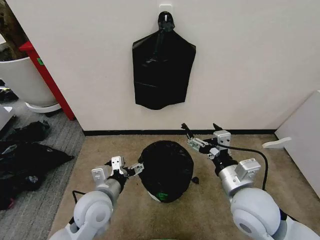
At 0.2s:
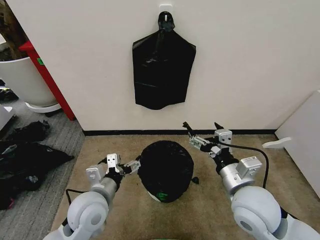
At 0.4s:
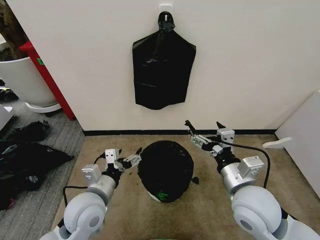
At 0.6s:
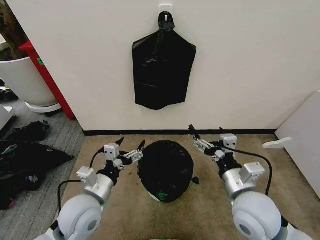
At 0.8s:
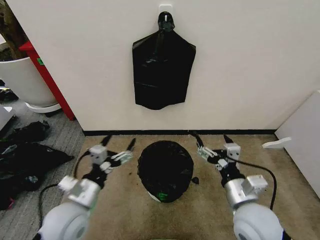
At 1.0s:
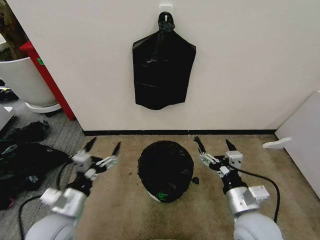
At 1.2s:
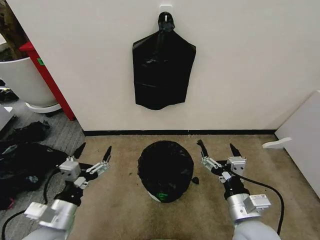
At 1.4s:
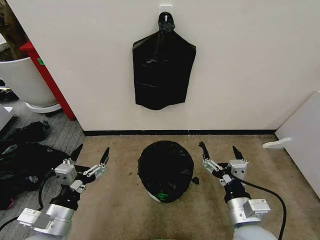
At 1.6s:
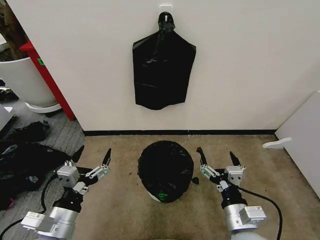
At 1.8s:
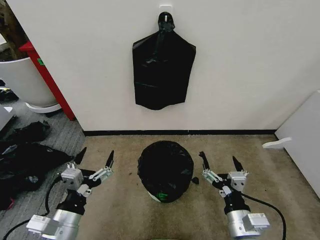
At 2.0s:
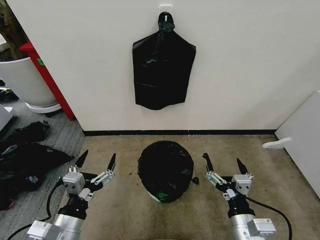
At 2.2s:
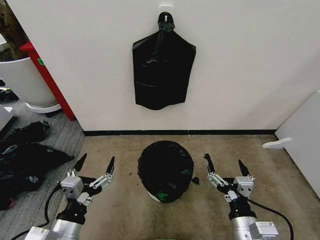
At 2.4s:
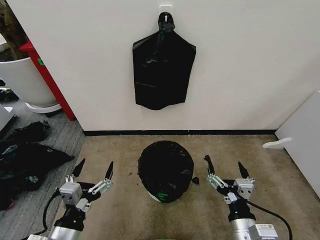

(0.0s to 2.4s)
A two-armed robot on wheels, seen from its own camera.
Task of the whole recording: Place the garbage bag over the trash bin.
0.0s - 1.2s: The right gripper shifts about 10 cm downward and backward, while the left gripper goes some 15 cm to the left and backward.
1.2s - 2.4s: The right gripper ends up approximately 5 cm from where it was; the left gripper shifts about 5 cm backward.

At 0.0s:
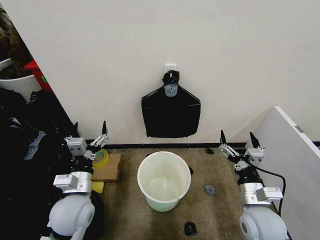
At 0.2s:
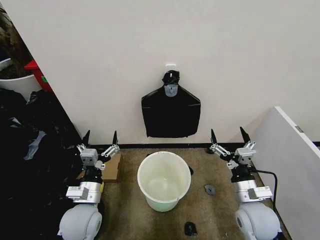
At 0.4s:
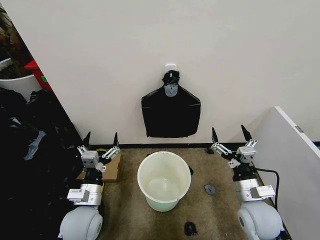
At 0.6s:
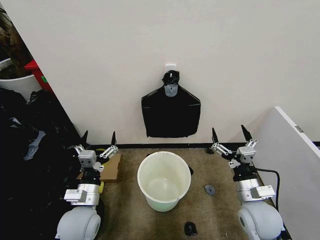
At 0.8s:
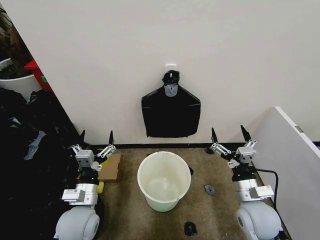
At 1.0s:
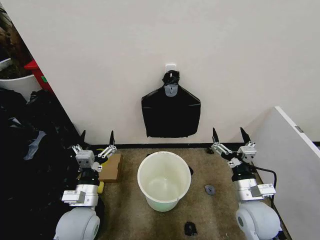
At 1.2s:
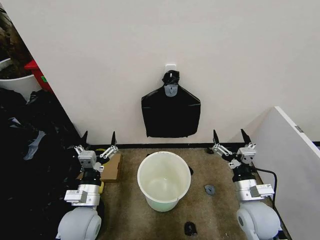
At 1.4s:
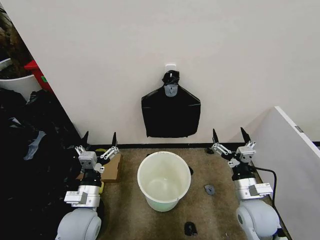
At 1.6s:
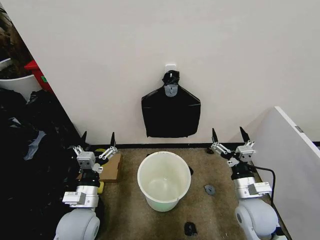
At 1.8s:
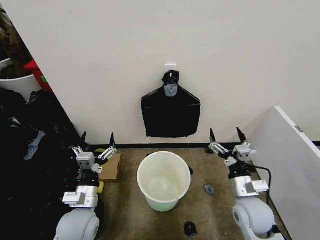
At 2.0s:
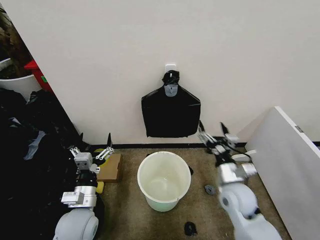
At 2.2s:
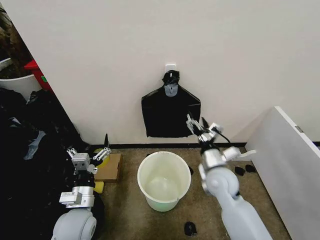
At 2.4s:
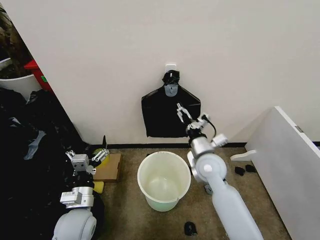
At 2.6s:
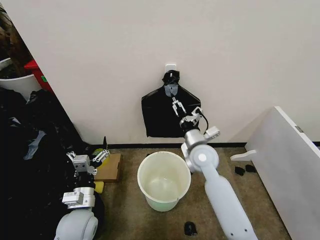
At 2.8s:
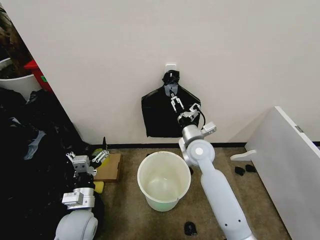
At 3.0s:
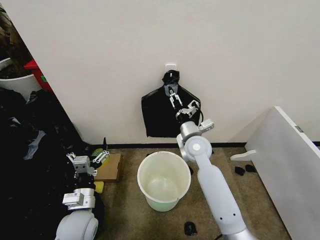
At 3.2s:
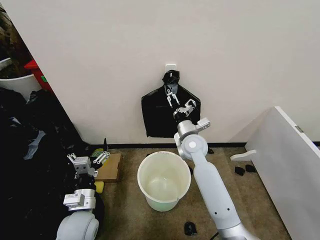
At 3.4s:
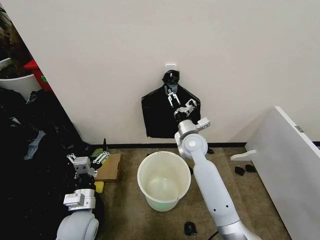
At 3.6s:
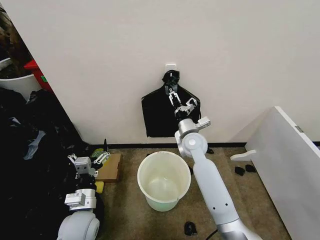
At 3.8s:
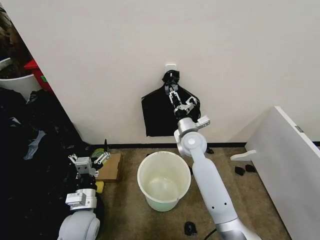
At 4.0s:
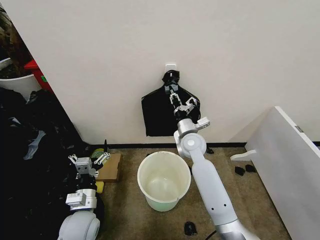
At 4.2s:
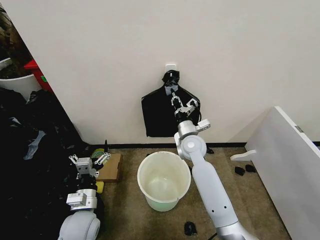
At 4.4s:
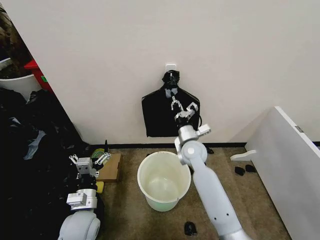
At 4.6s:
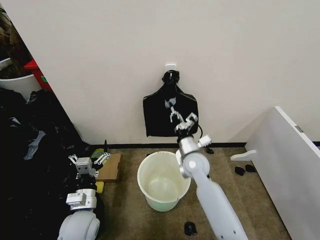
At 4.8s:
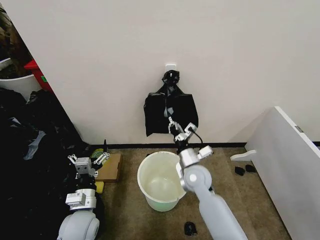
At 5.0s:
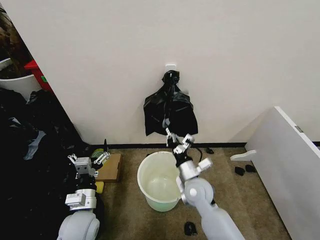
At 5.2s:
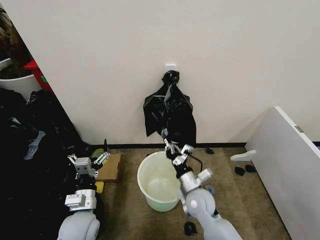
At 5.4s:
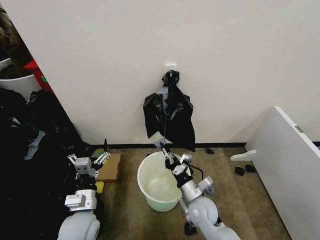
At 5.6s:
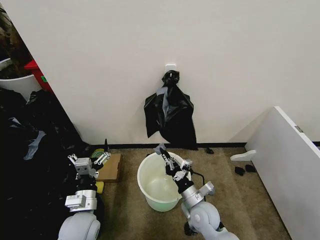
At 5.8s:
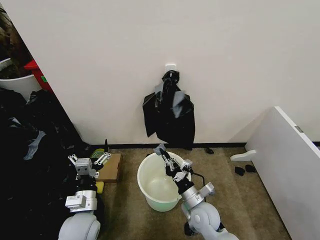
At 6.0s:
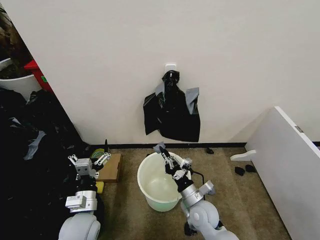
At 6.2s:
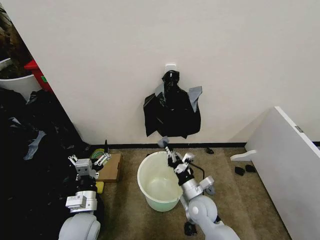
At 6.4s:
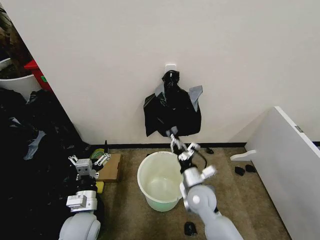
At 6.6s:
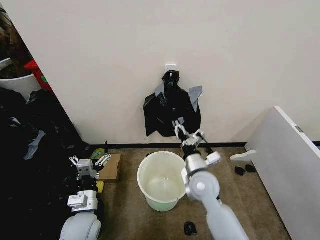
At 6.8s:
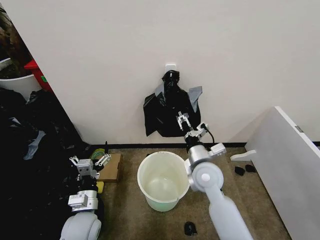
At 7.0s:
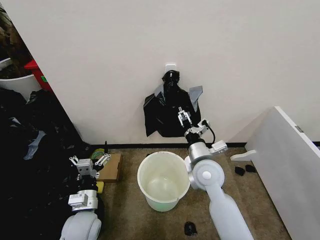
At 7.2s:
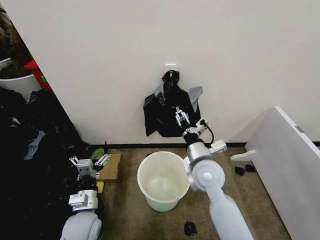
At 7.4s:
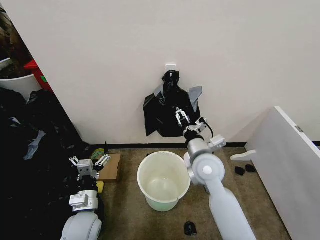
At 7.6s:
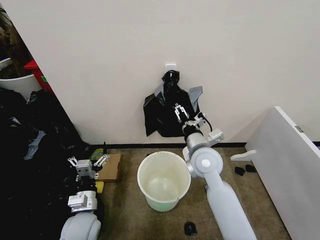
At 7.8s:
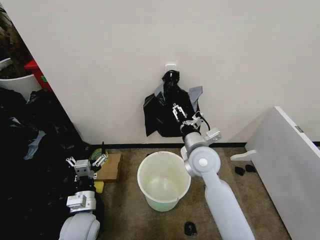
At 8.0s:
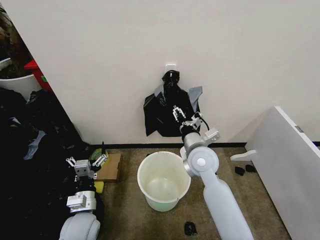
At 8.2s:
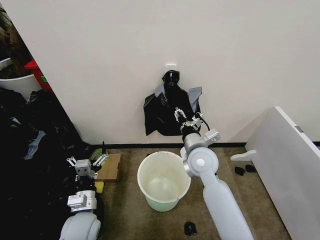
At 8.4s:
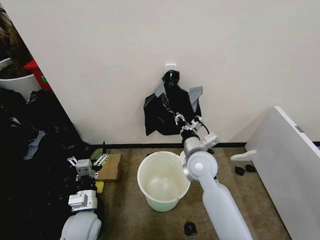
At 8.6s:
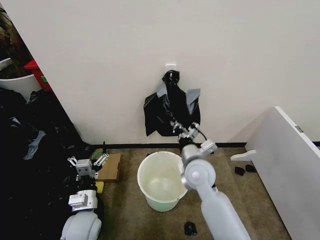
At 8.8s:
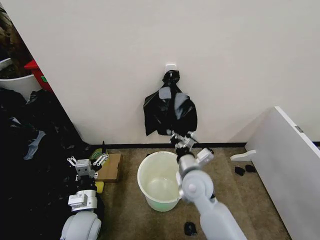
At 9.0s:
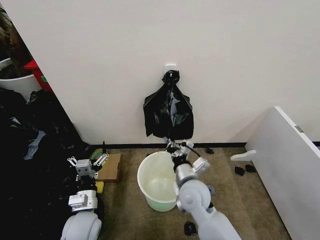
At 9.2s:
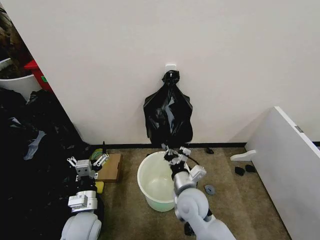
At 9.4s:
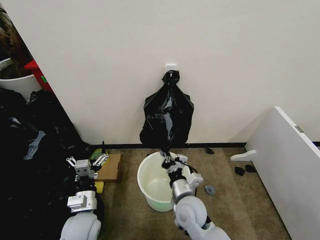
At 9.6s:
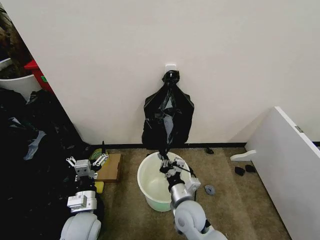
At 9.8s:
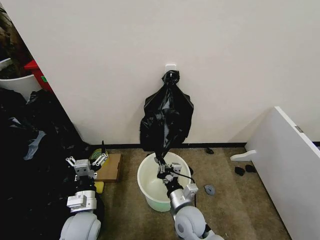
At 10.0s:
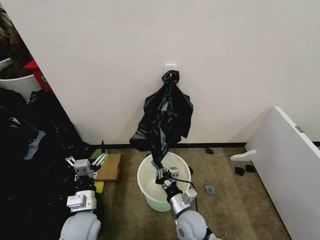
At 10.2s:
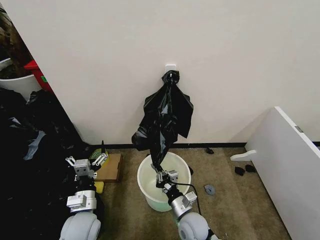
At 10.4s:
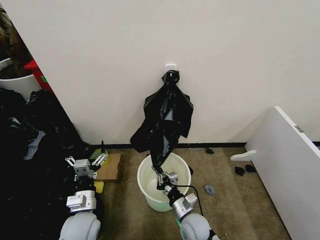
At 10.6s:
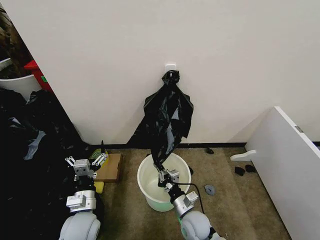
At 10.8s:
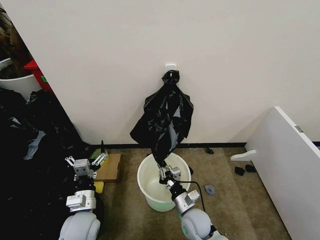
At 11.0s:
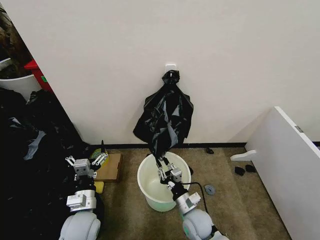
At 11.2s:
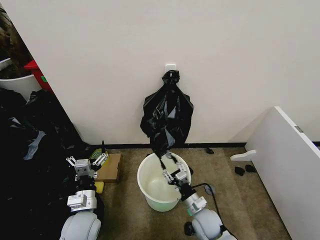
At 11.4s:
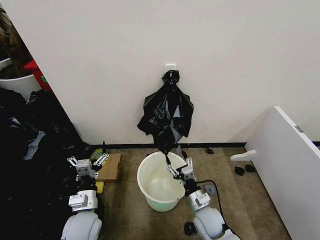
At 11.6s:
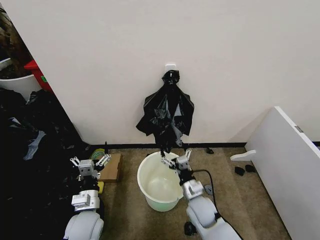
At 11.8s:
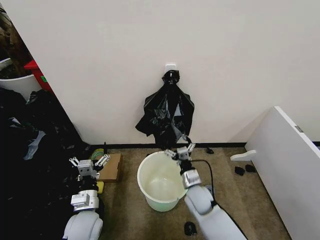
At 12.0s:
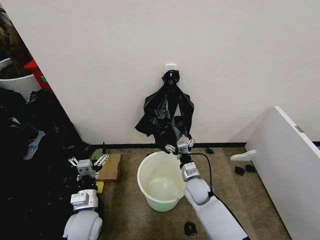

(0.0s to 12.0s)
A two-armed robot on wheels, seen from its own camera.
Task of the whole recording: Place the garbage bag over the trash bin.
1.6s - 3.0s: The right gripper travels forward and to the left by approximately 25 cm.
3.0s - 4.4s: The right gripper closes.
4.4s - 6.0s: The right gripper heads backward and downward, covering roughly 20 cm.
6.0s - 7.6s: The right gripper travels upward and forward by approximately 20 cm, and opens its fingers.
7.6s - 9.0s: The right gripper heads downward and backward, covering about 10 cm, and closes its fingers.
9.0s - 10.4s: The right gripper moves downward and backward, about 15 cm.
10.4s - 12.0s: The right gripper goes roughly 10 cm forward, and opens its fingers.

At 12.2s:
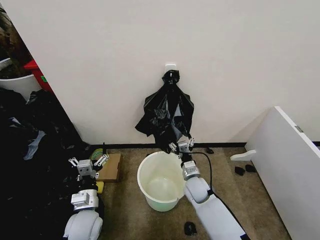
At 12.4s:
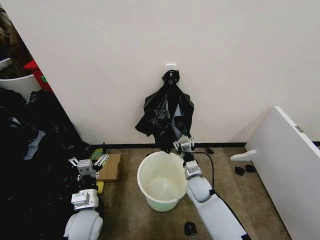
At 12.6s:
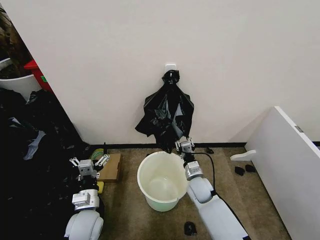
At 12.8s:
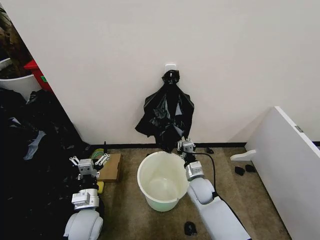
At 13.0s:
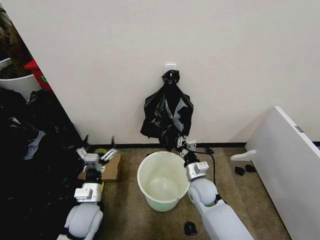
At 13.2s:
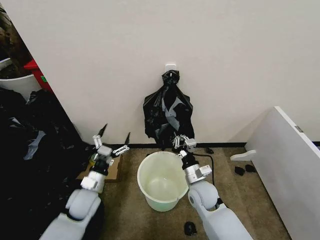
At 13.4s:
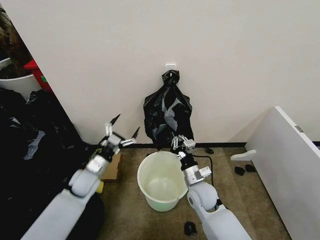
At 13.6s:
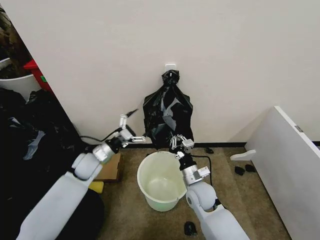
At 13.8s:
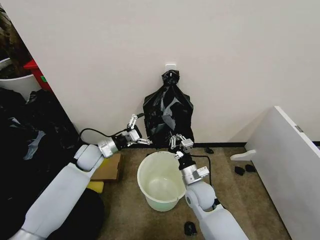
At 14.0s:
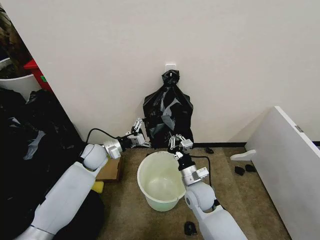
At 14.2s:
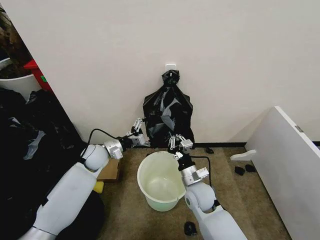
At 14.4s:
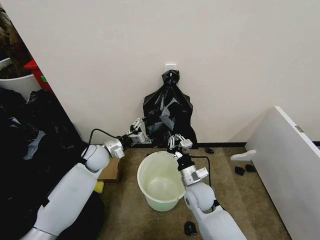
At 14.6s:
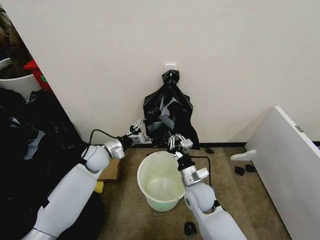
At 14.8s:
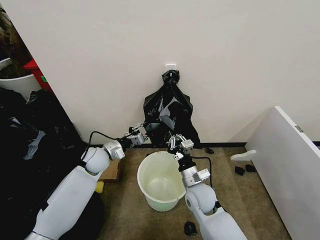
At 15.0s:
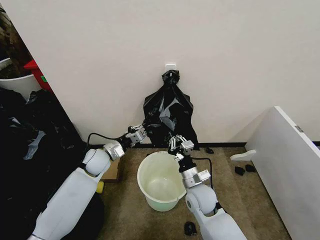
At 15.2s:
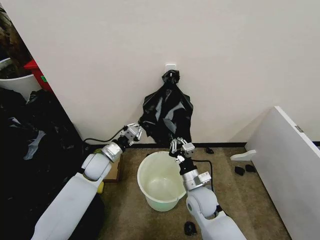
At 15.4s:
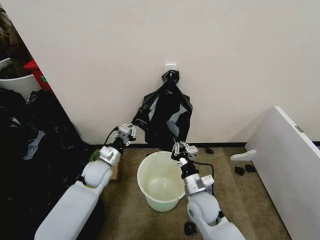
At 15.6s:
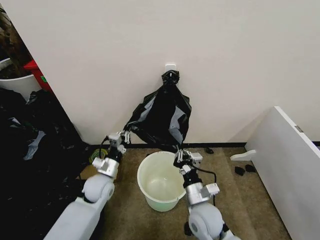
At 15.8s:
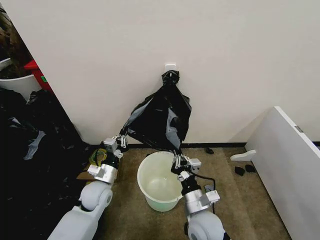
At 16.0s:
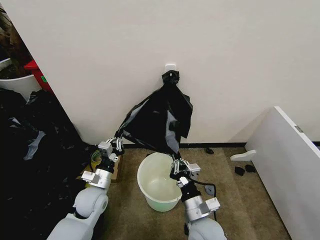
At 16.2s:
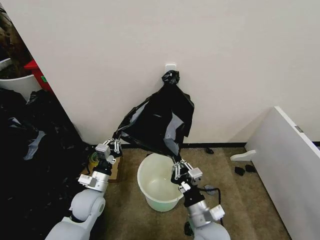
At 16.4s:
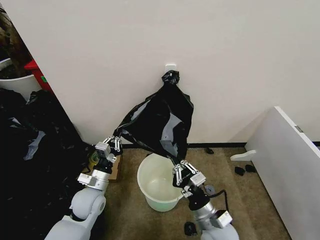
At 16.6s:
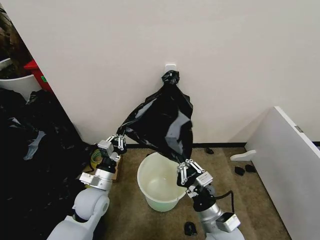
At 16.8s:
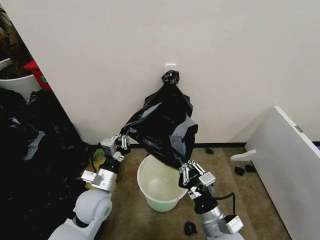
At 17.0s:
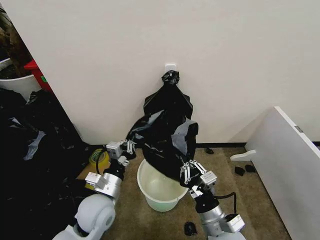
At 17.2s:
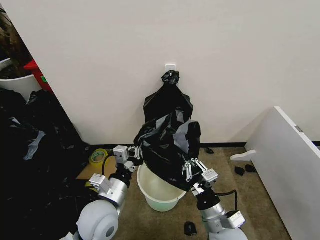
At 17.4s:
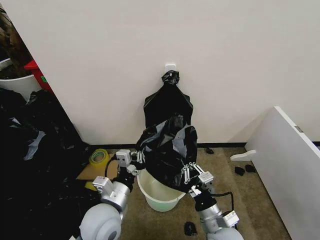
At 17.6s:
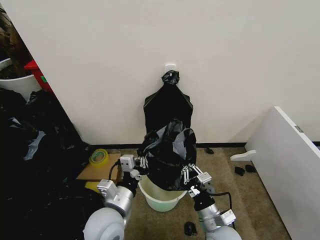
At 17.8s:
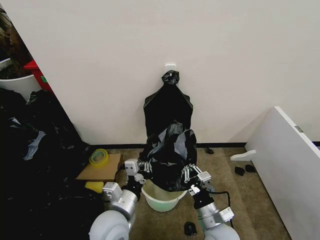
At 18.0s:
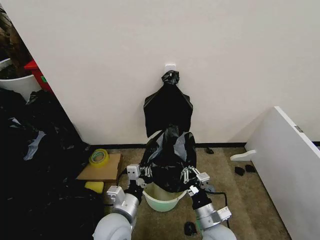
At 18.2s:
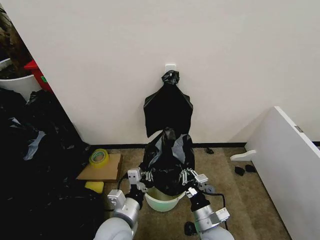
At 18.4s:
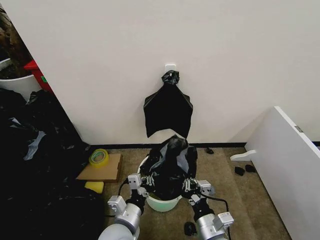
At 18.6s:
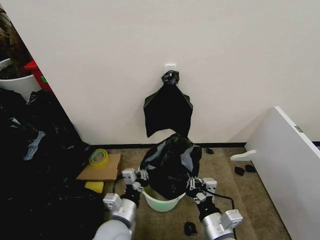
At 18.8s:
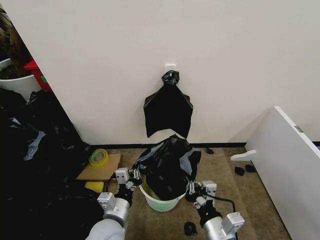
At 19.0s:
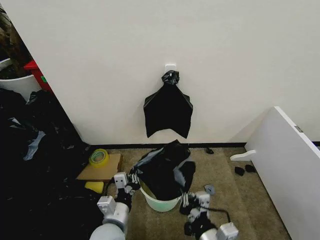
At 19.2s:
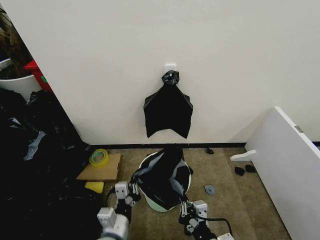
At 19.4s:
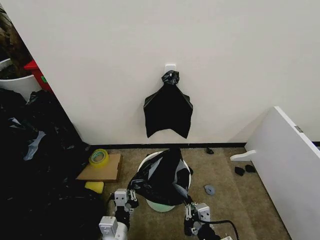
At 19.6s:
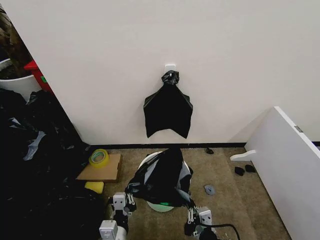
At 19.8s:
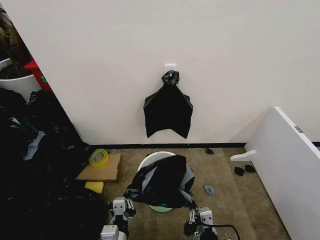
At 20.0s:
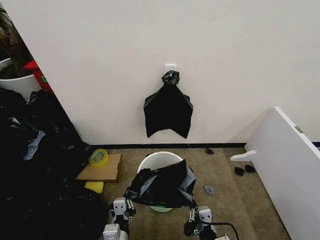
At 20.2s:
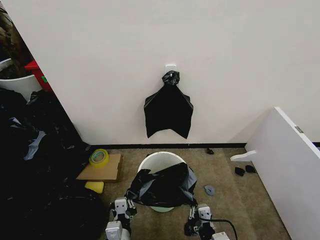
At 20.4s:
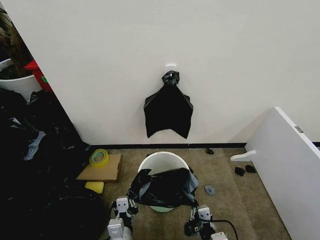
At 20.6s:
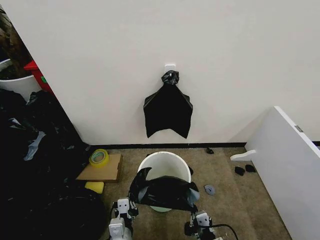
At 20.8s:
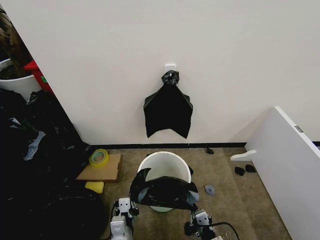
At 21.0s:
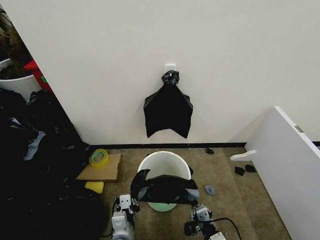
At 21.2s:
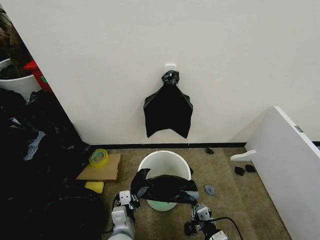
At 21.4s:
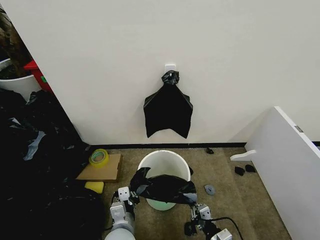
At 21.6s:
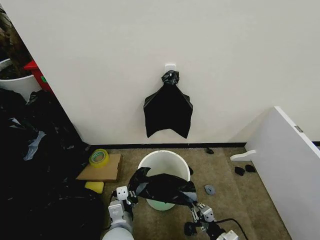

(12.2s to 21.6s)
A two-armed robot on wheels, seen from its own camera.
Task of the whole recording: Place the garbage bag over the trash bin.
12.2s - 13.8s: The right gripper goes some 5 cm upward, and closes up. Meanwhile the left gripper goes some 20 cm forward.
13.8s - 15.4s: The left gripper ends up approximately 5 cm from where it was, and closes its fingers.
15.4s - 17.0s: Both grippers travel together backward, approximately 15 cm.
17.0s - 18.4s: The left gripper heads backward and to the right, covering approximately 10 cm.
18.4s - 20.0s: The right gripper shifts roughly 10 cm backward; the left gripper is displaced backward and downward by about 10 cm.
20.0s - 21.6s: The right gripper shifts some 15 cm downward, to the right and forward. Meanwhile the left gripper is displaced forward by some 5 cm.
